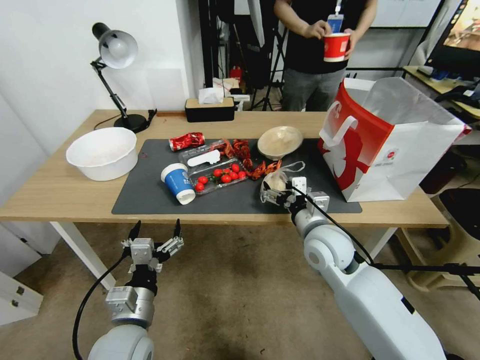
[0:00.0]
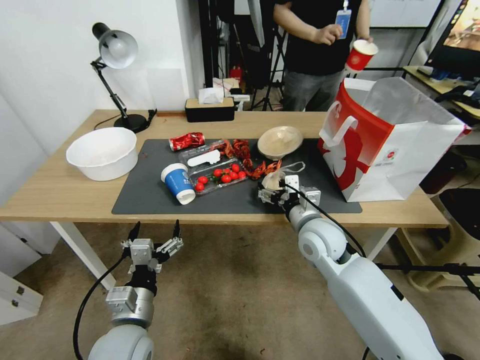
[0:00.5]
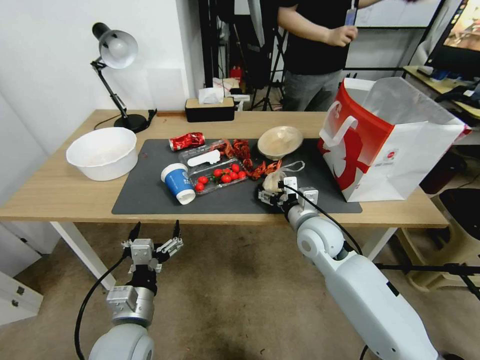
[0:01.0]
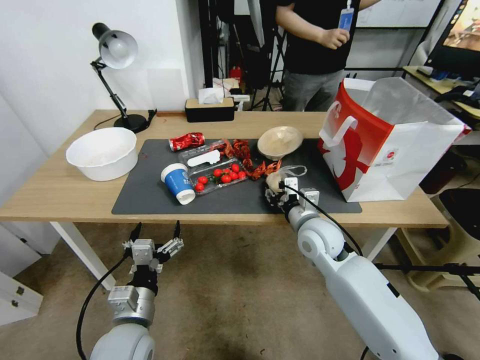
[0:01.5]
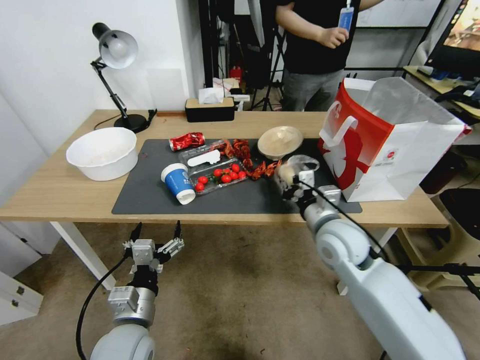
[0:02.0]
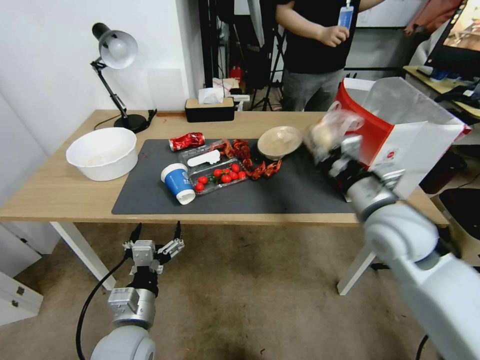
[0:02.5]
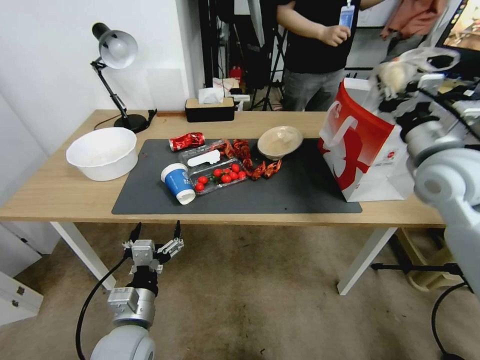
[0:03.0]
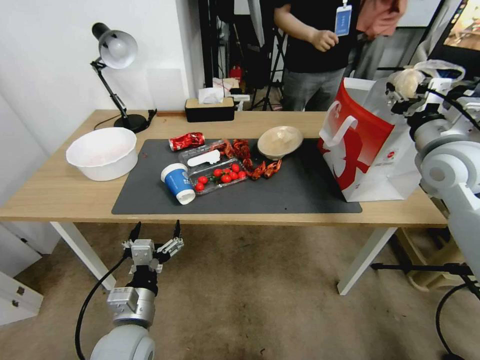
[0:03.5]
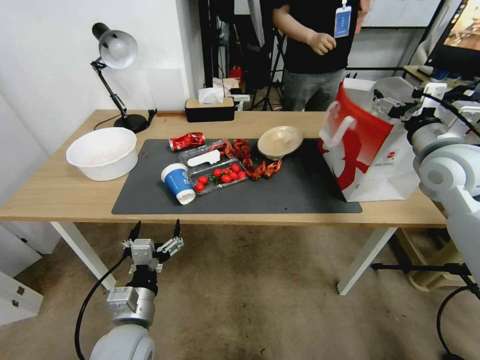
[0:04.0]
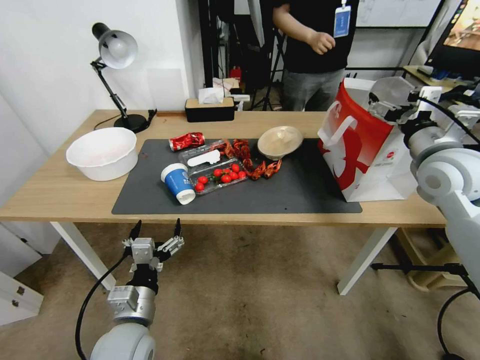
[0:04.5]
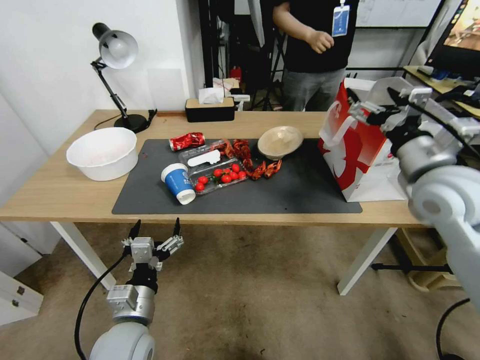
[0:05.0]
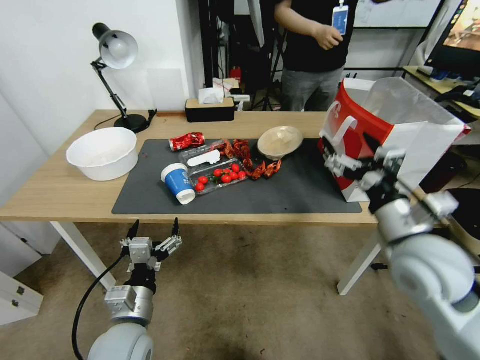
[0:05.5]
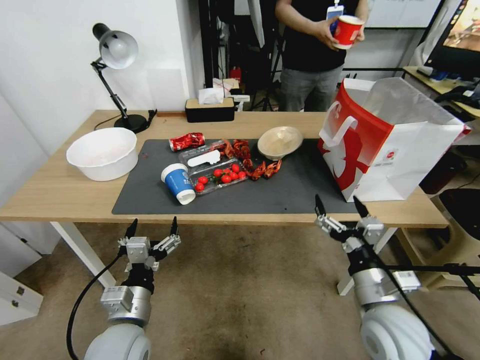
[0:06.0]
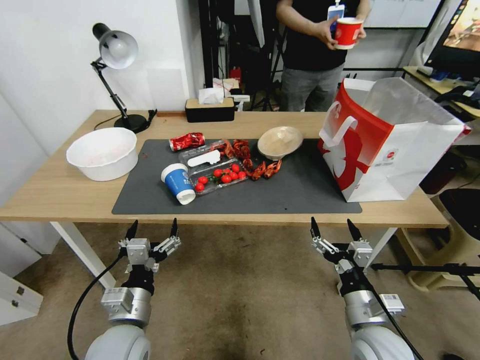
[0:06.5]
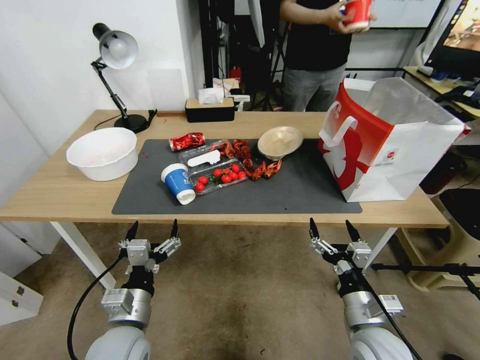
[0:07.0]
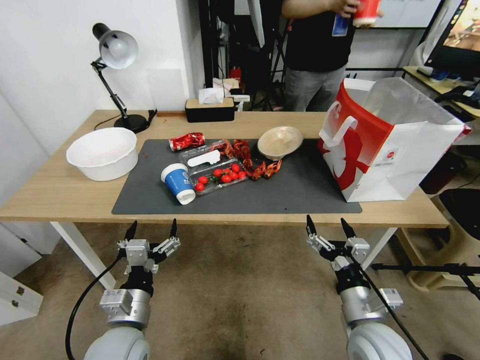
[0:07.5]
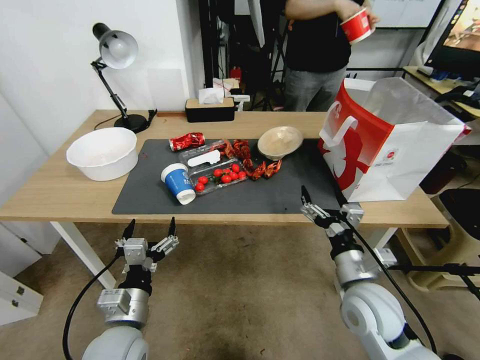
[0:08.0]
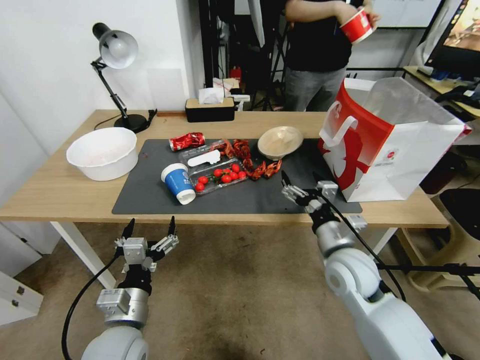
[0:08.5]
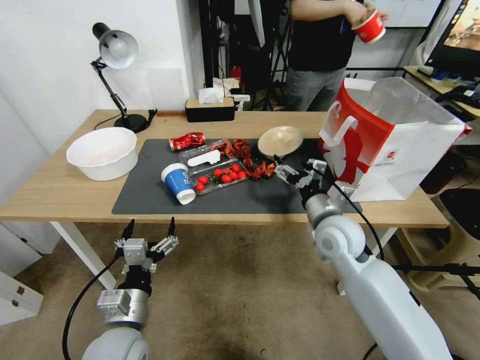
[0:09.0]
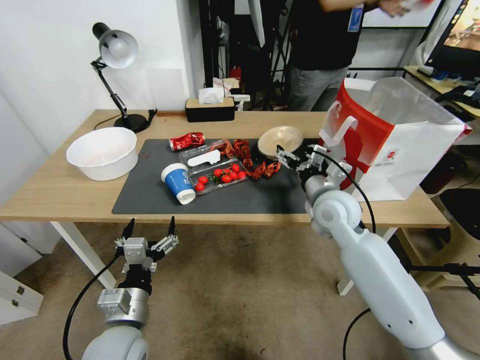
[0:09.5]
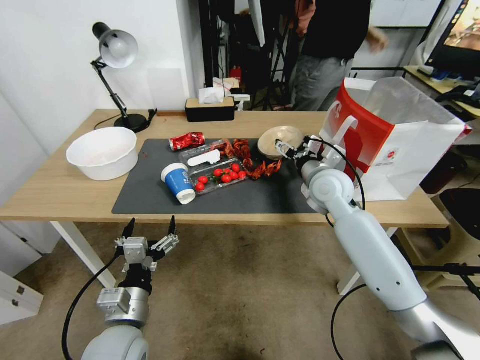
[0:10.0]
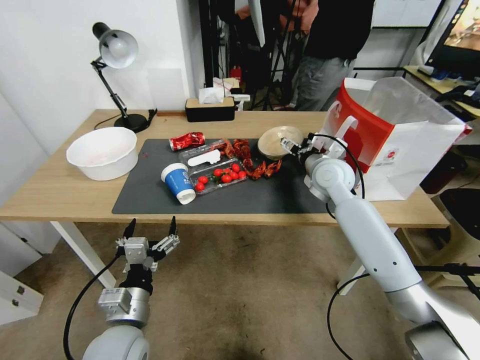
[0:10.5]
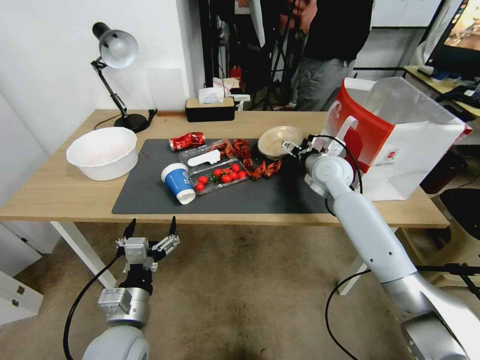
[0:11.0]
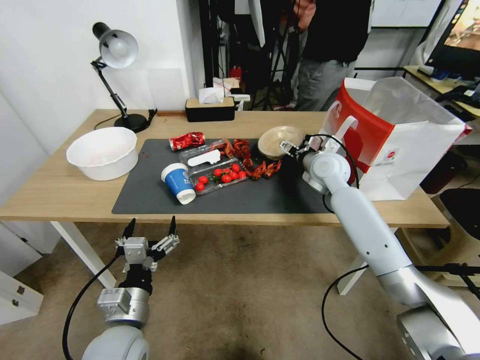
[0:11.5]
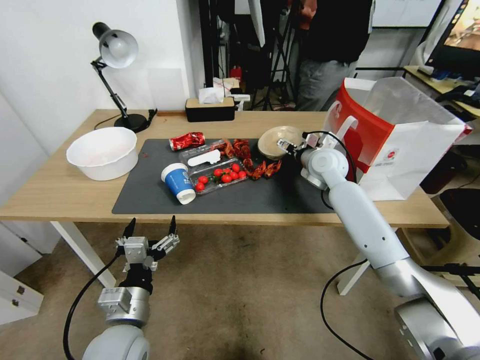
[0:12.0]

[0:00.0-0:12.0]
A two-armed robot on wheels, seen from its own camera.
0:00.0 to 0:02.0: The right gripper closes up.
0:02.0 to 0:04.0: The right gripper shifts some 25 cm to the right and upward, and opens.
0:04.0 to 0:06.0: The right gripper moves downward, backward and to the left, roughly 30 cm.
0:08.0 to 0:10.0: The right gripper shifts approximately 20 cm forward and upward.
0:10.0 to 0:12.0: The right gripper moves forward, some 10 cm.

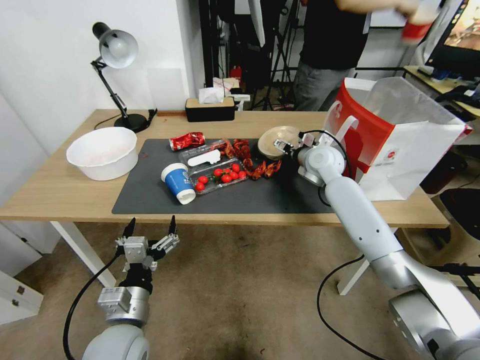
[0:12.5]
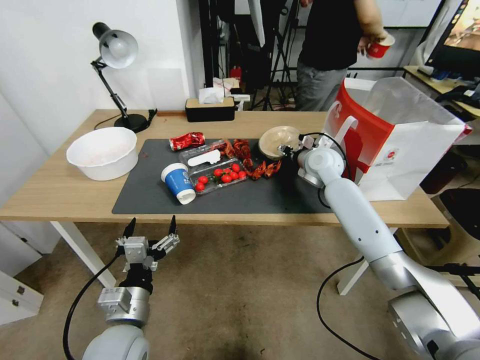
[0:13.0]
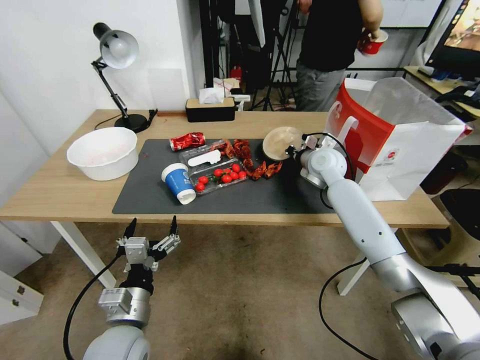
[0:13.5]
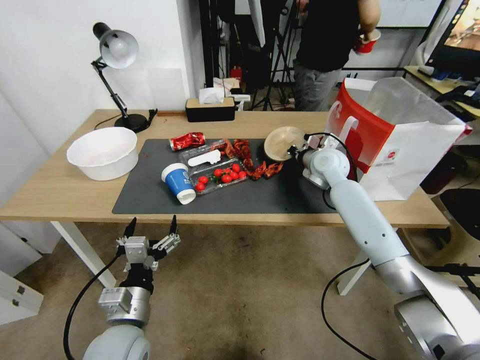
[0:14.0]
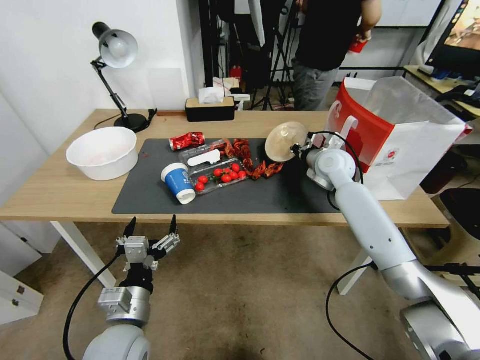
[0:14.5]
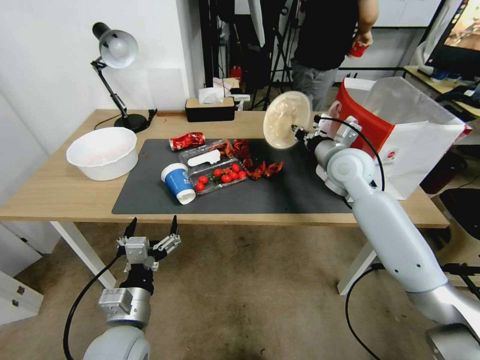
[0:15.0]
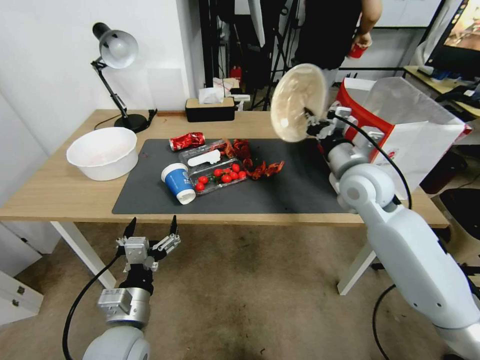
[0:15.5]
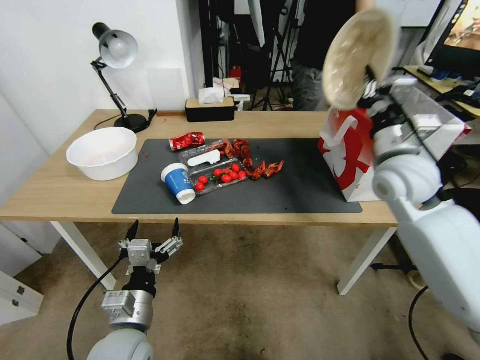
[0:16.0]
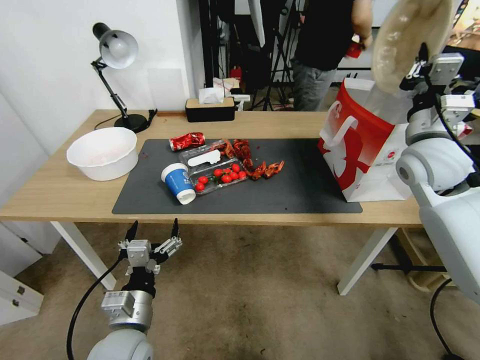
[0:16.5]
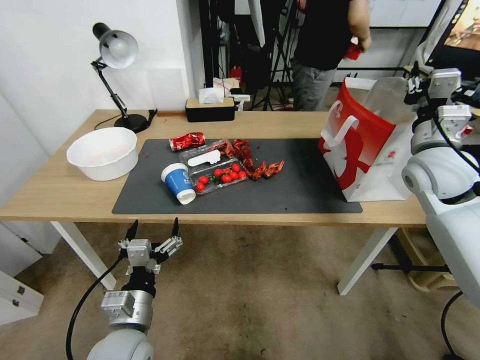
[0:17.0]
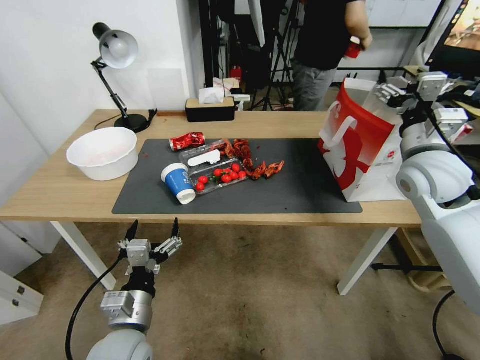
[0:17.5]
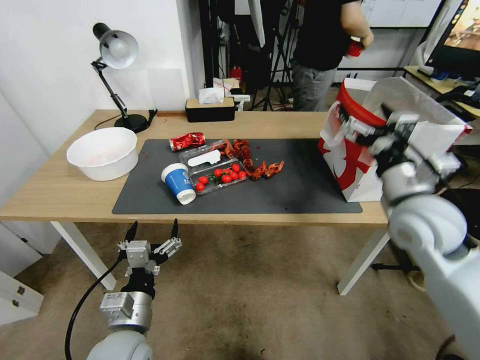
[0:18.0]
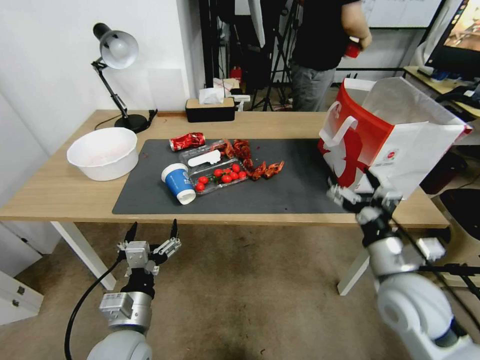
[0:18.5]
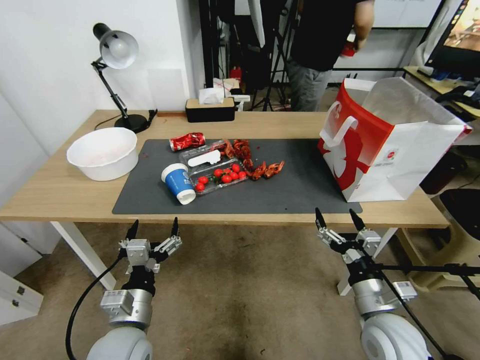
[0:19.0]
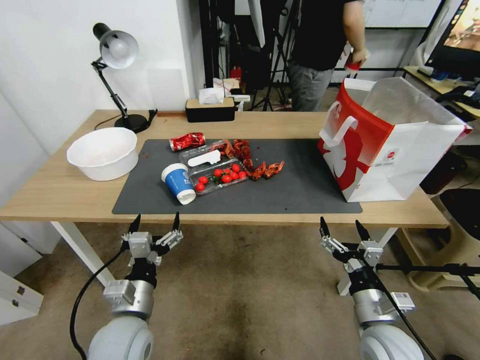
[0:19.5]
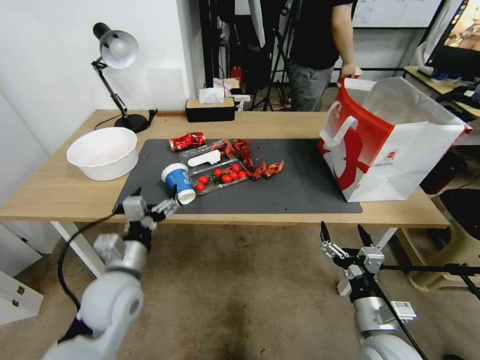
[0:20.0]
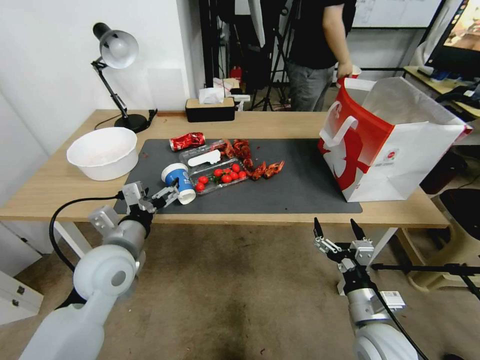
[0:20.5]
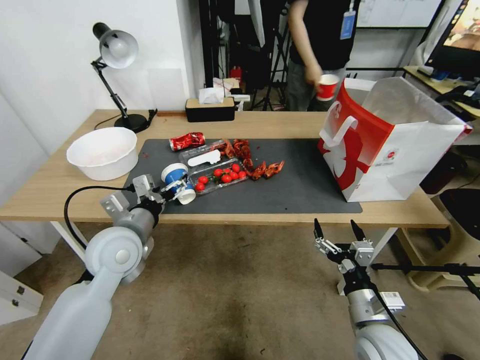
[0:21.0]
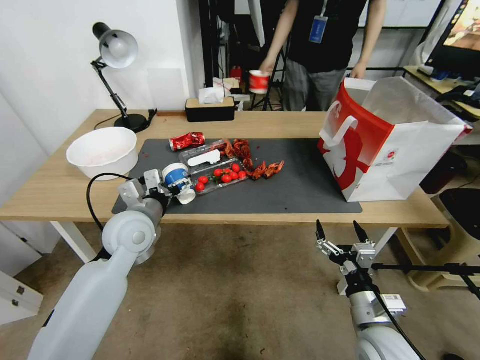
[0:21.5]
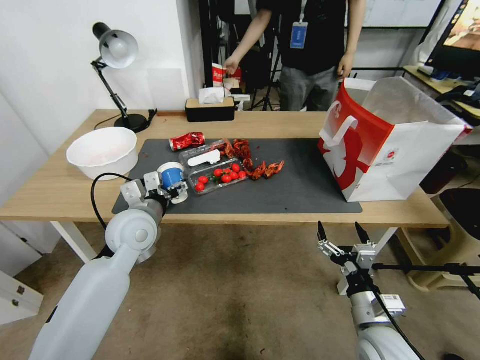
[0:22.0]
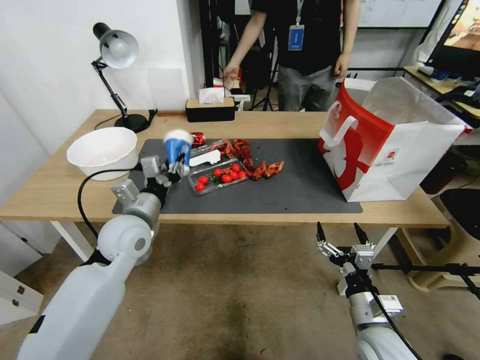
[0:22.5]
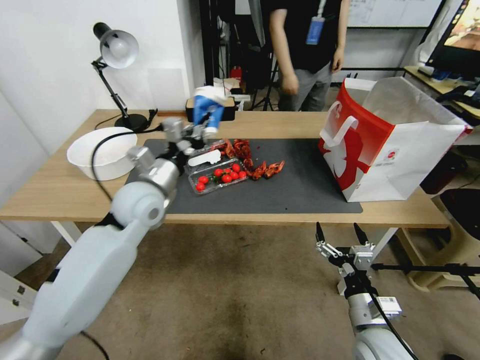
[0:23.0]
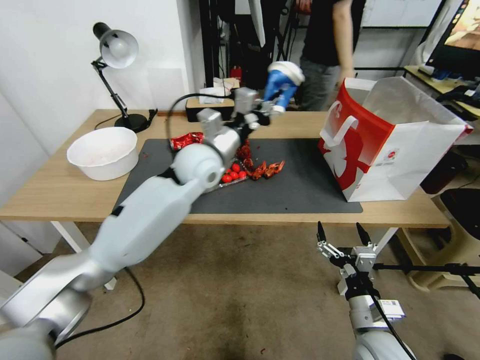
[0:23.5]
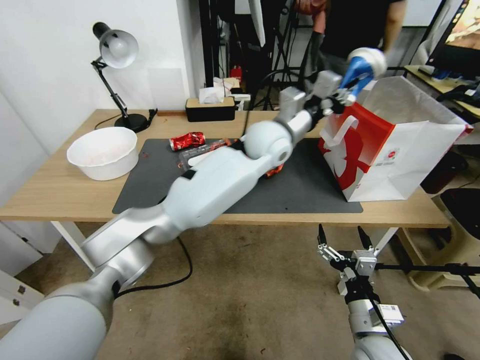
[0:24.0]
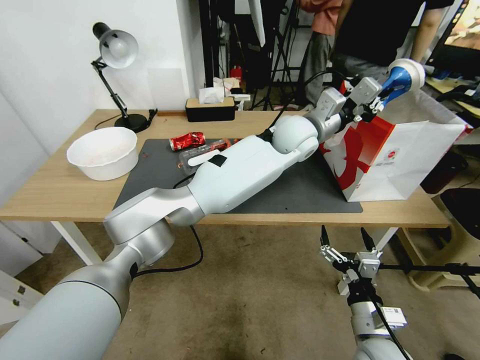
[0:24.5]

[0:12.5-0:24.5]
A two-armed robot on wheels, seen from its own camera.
0:12.5 to 0:14.5: The right gripper closes its fingers.
0:14.5 to 0:16.5: The right gripper shifts approximately 20 cm backward, upward and to the right.
0:16.5 to 0:18.5: The right gripper goes approximately 25 cm backward and downward, and opens its fingers.
0:18.5 to 0:20.5: The right gripper is displaced downward and backward by approximately 10 cm. Meanwhile the left gripper is displaced forward and upward by roughly 15 cm.
0:20.5 to 0:22.5: The left gripper travels forward by approximately 5 cm, and closes up.
0:22.5 to 0:24.5: The left gripper moves to the right and forward, approximately 40 cm.

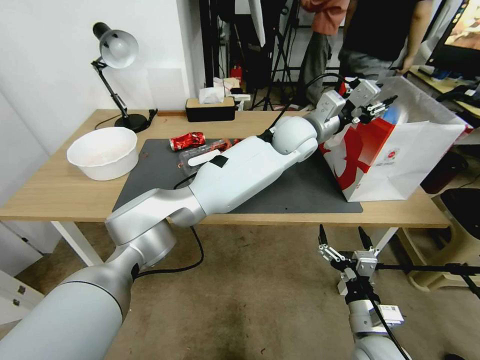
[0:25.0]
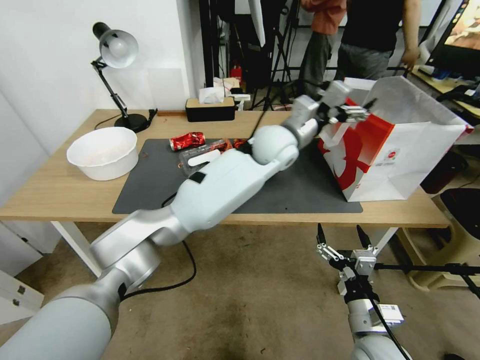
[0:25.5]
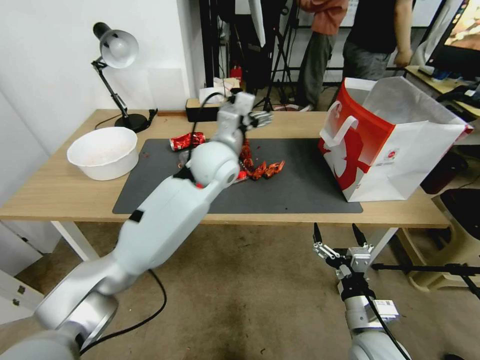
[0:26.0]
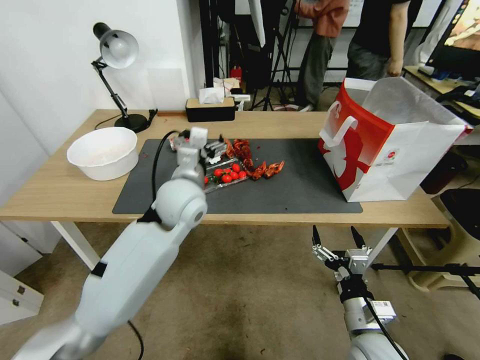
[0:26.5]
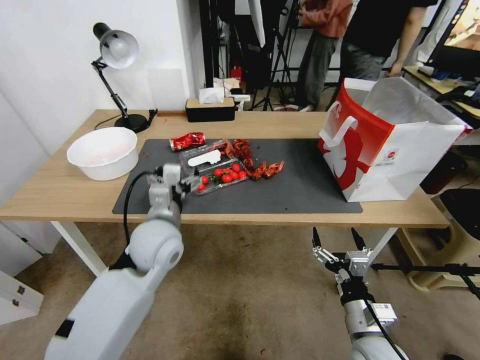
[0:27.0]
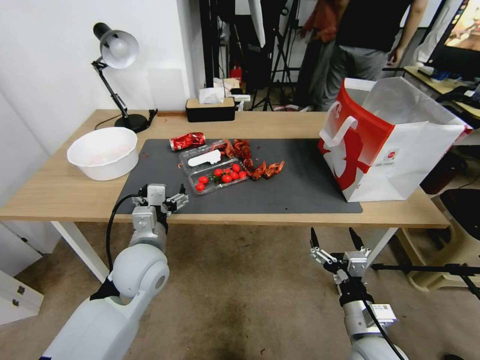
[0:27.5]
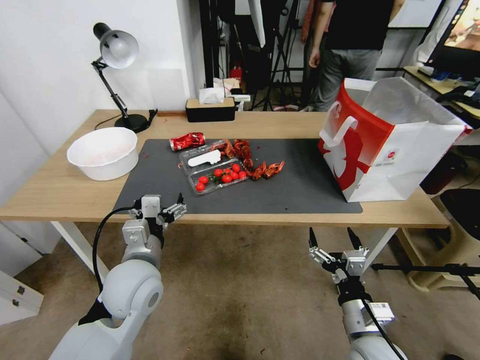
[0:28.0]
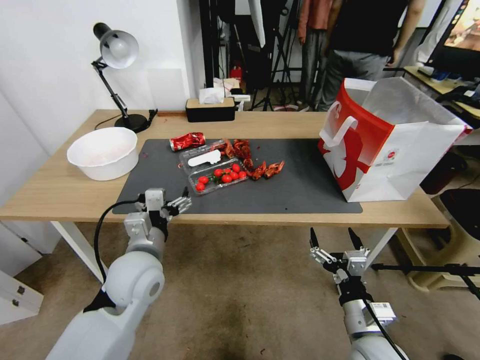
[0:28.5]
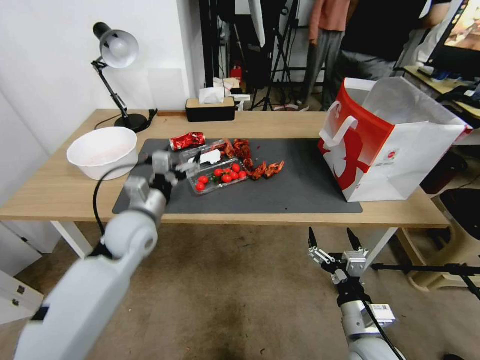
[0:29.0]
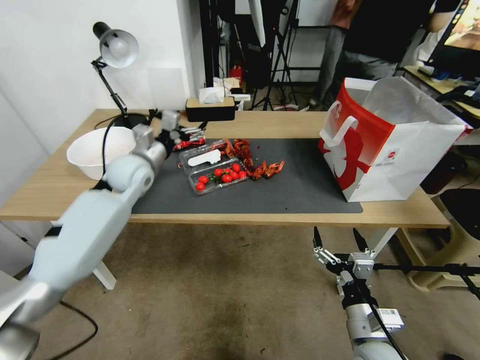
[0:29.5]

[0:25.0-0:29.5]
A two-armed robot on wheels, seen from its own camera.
0:25.0 to 0:27.0: The left gripper goes roughly 35 cm to the left, backward and downward, and opens.
0:27.0 to 0:29.5: The left gripper heads forward and to the left, covering about 15 cm.
